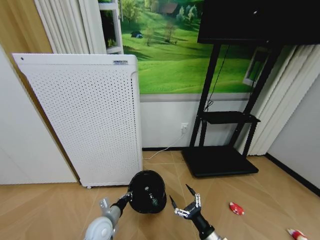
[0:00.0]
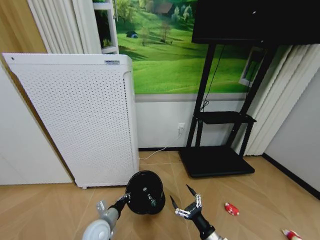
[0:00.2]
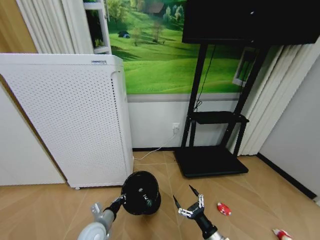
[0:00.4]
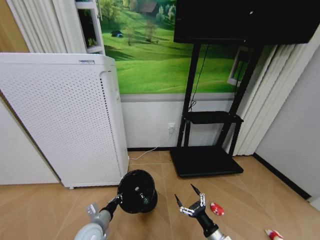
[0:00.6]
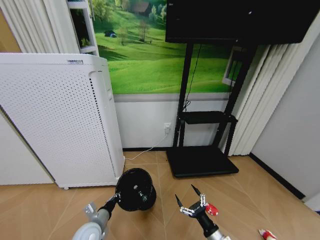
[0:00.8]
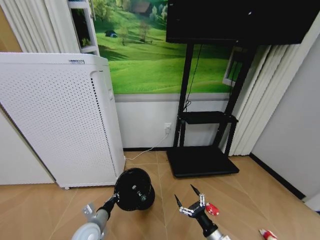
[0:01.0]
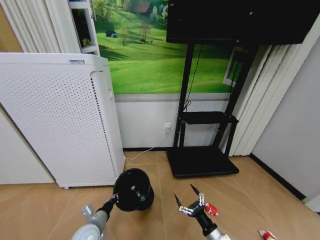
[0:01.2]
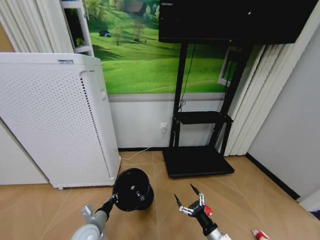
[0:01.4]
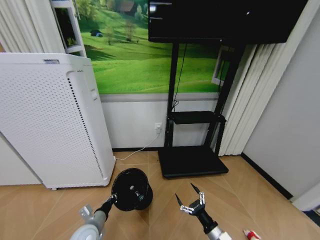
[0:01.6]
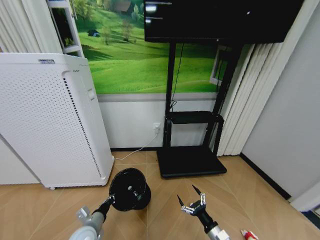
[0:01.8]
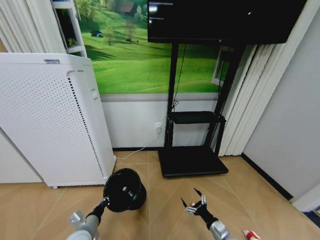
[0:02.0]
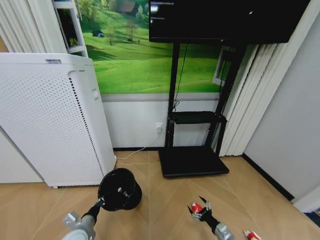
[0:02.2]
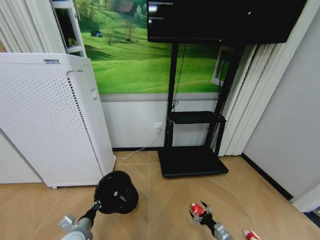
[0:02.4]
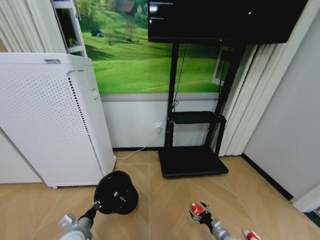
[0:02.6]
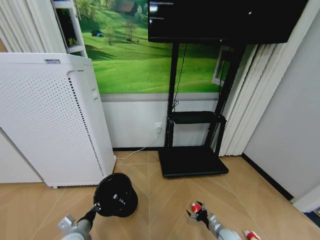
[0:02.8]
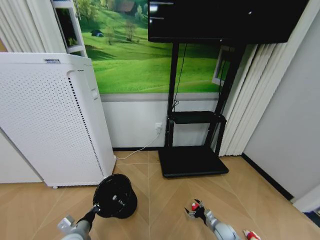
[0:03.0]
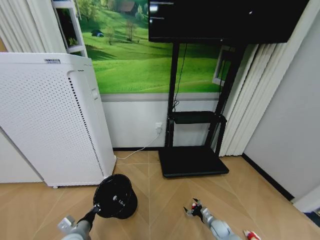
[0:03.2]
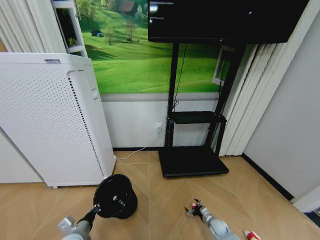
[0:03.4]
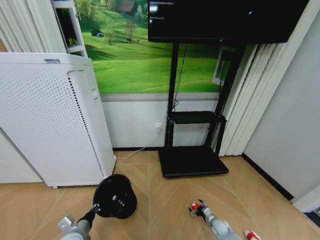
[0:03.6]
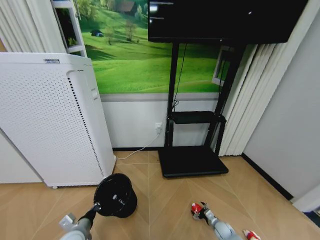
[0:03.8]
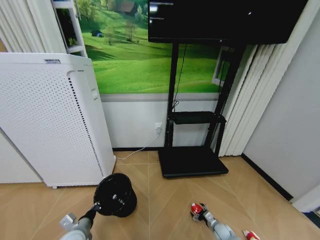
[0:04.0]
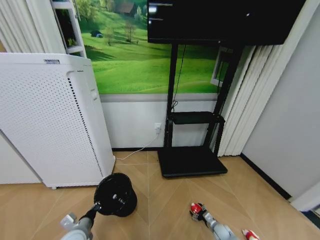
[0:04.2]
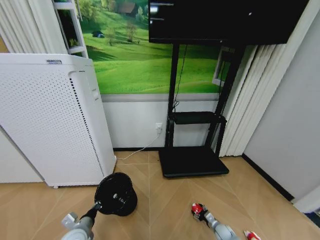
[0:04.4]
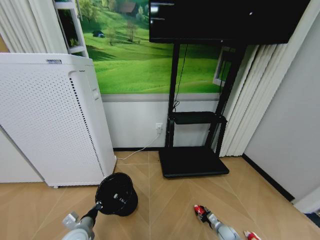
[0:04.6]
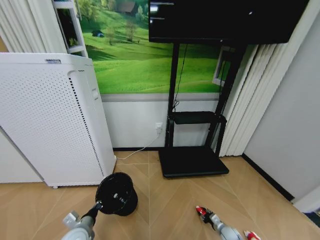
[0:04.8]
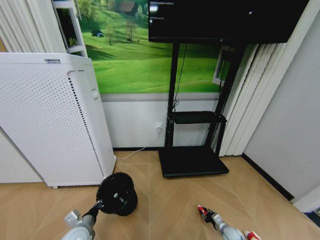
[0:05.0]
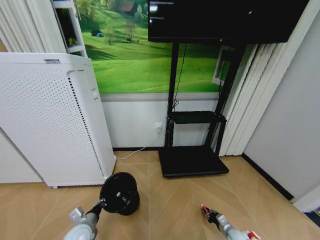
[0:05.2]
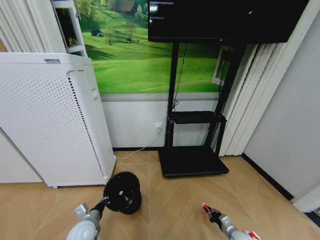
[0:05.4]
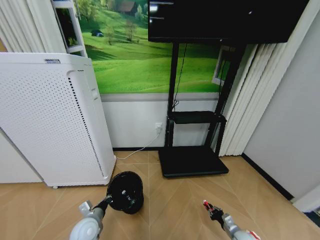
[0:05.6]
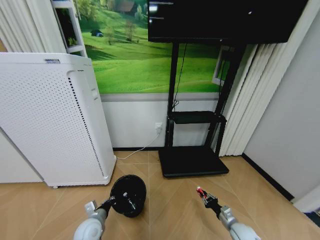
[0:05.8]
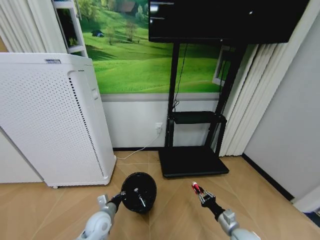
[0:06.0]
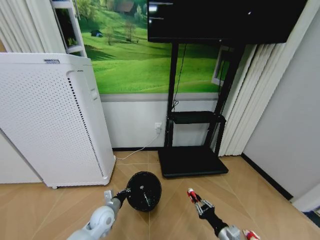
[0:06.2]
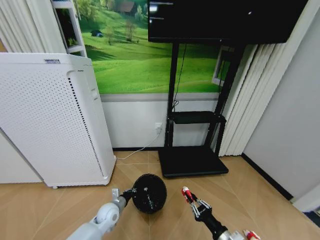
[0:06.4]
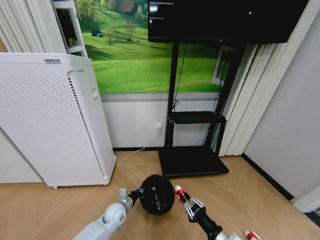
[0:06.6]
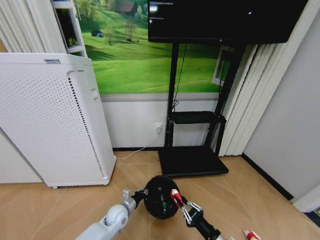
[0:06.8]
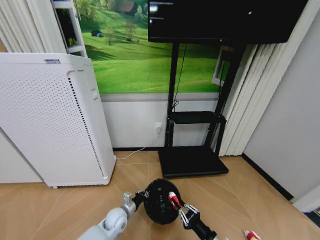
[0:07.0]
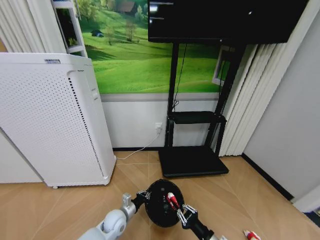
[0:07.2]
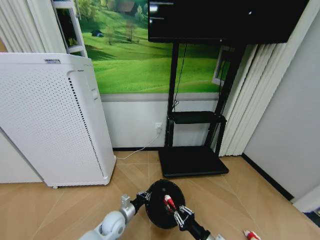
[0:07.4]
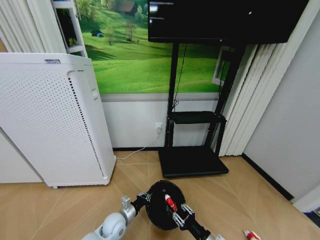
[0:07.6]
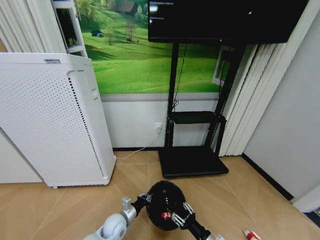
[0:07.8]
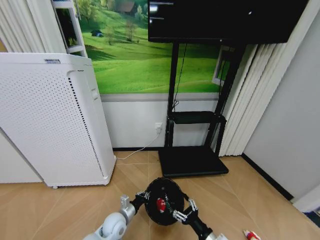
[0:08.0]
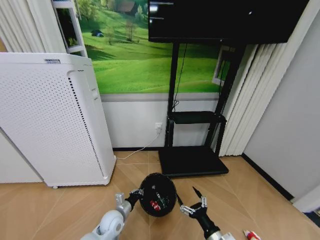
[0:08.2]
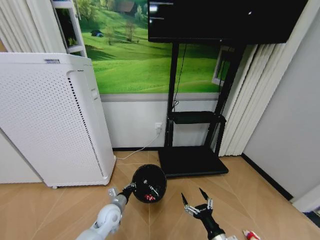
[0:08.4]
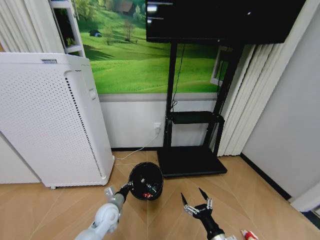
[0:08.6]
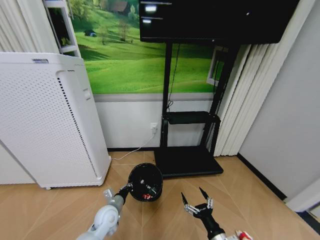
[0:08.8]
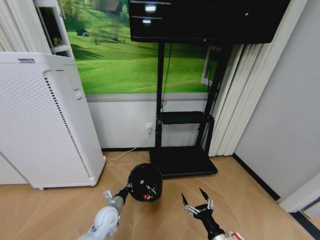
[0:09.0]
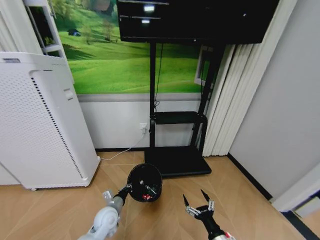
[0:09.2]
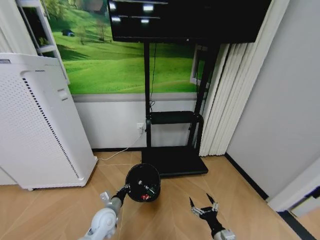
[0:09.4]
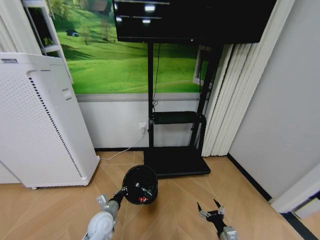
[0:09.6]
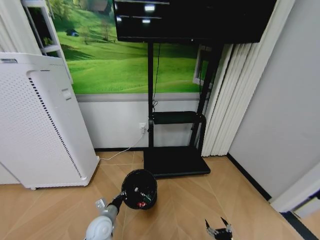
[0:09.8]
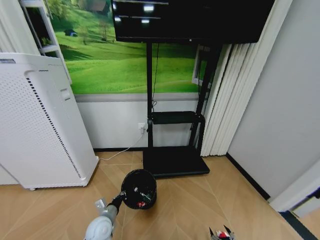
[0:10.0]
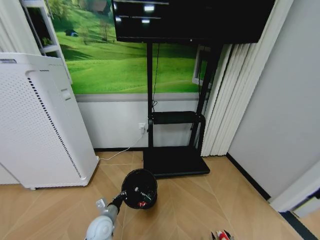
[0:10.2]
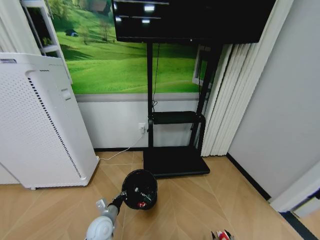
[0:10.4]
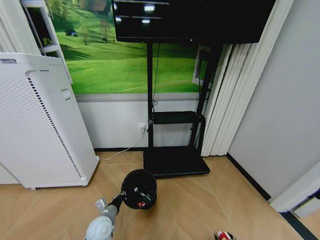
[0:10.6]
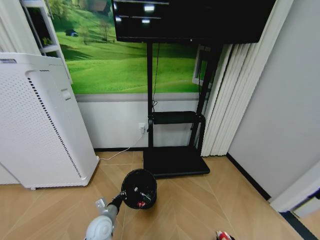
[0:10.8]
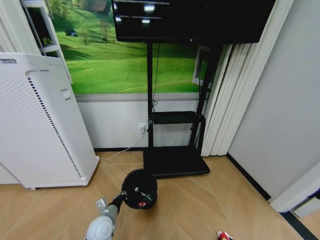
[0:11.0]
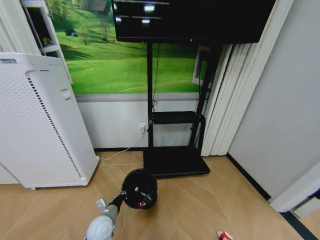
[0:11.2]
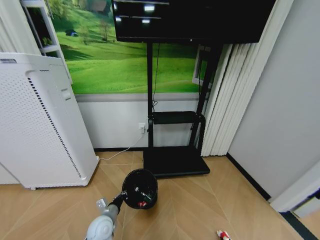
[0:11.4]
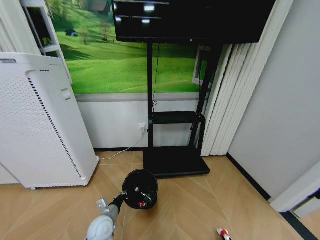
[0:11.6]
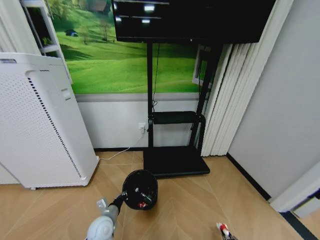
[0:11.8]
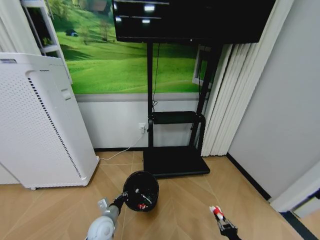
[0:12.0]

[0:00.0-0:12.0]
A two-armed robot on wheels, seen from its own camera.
Task of the whole recording: Pick up the trash bin and place the garbage on the floor into it.
0:00.0 to 0:01.6: The left gripper shifts by approximately 5 cm.
0:01.6 to 0:03.0: The right gripper moves downward, to the right and forward, some 20 cm.
0:03.0 to 0:04.4: The right gripper travels downward by some 5 cm.
0:04.4 to 0:06.0: The left gripper shifts about 10 cm forward and to the right. Meanwhile the right gripper travels upward by approximately 20 cm, and closes its fingers.
0:06.0 to 0:07.6: The left gripper is displaced to the right by approximately 5 cm. Meanwhile the right gripper moves to the left and backward, roughly 10 cm.
0:07.6 to 0:09.0: The right gripper opens up.
0:09.0 to 0:10.4: The right gripper moves downward and to the right, about 25 cm.
0:10.4 to 0:12.0: The right gripper closes up.

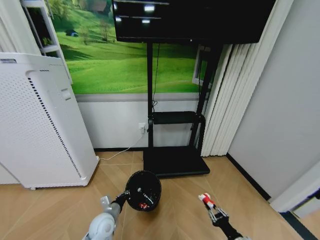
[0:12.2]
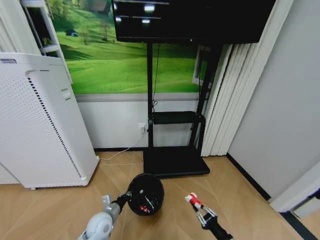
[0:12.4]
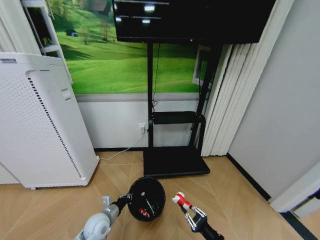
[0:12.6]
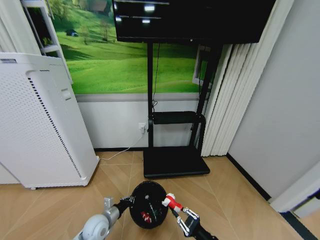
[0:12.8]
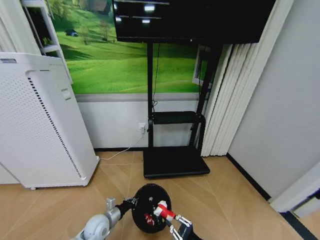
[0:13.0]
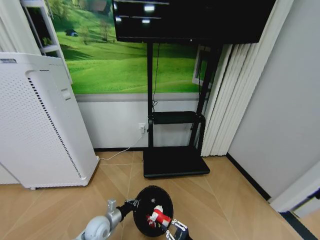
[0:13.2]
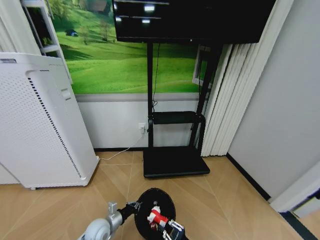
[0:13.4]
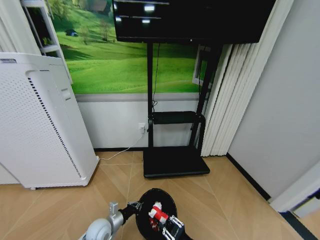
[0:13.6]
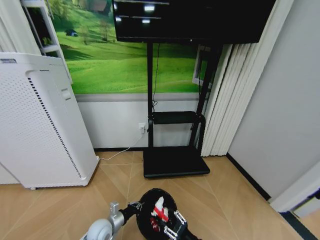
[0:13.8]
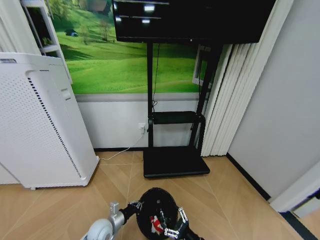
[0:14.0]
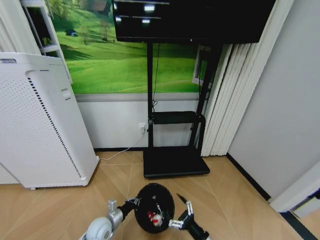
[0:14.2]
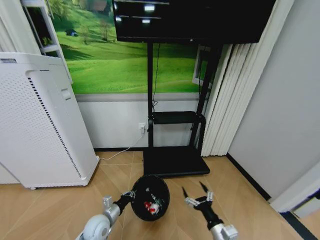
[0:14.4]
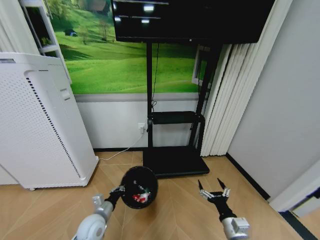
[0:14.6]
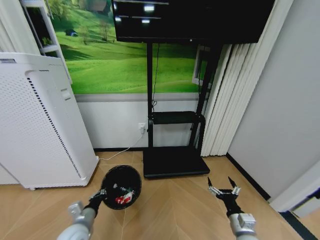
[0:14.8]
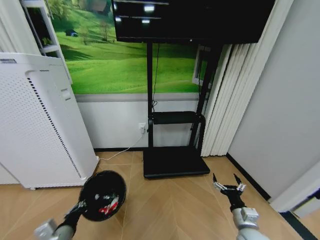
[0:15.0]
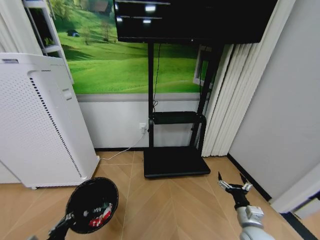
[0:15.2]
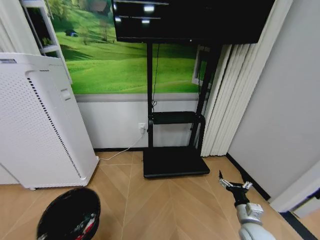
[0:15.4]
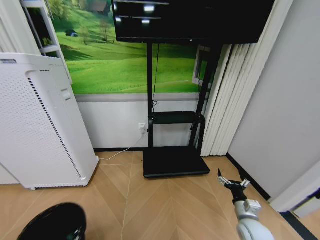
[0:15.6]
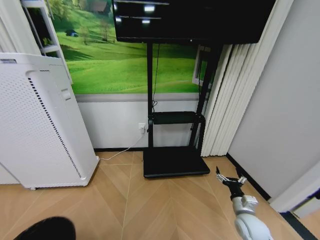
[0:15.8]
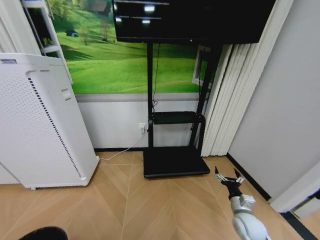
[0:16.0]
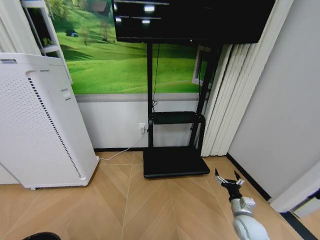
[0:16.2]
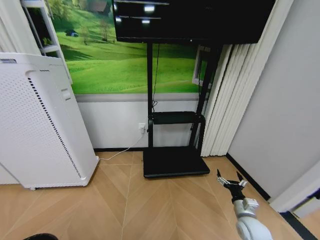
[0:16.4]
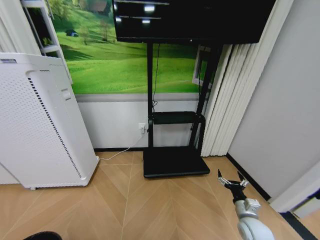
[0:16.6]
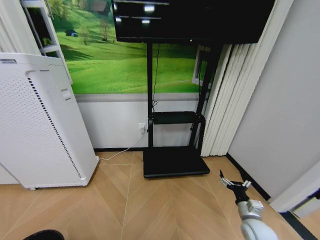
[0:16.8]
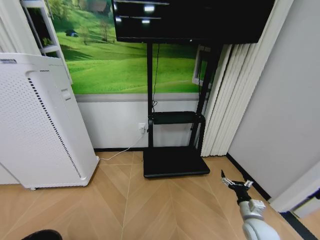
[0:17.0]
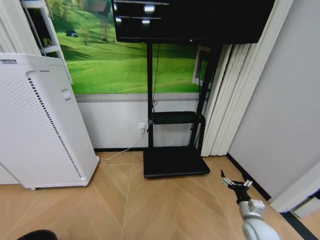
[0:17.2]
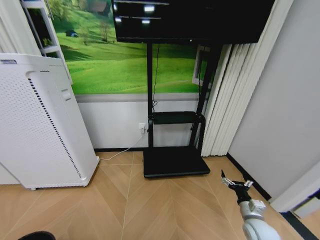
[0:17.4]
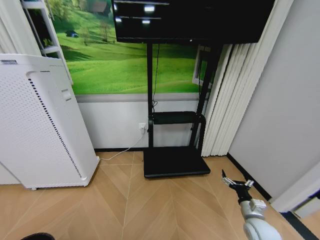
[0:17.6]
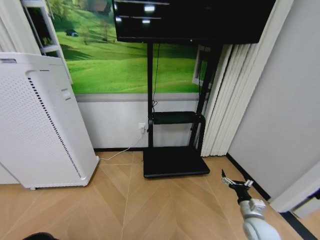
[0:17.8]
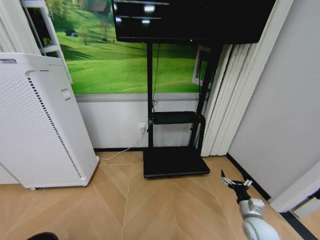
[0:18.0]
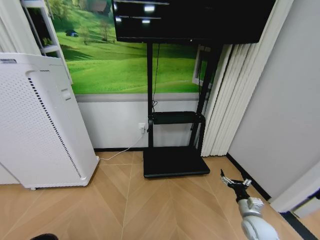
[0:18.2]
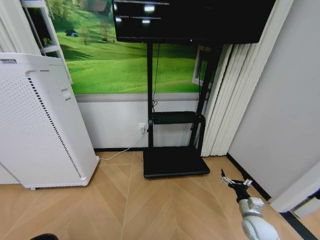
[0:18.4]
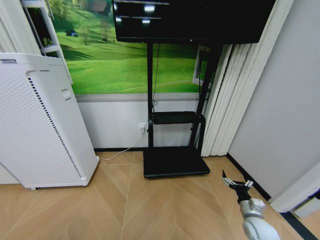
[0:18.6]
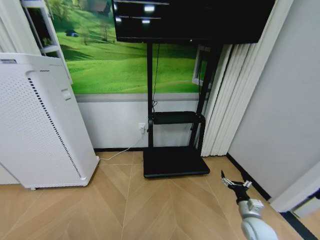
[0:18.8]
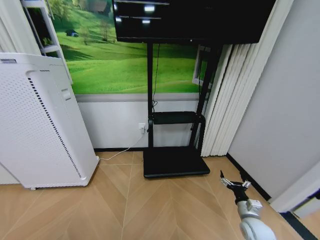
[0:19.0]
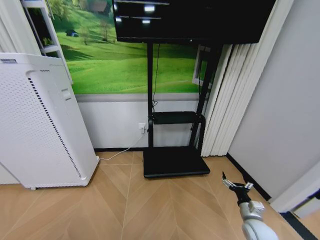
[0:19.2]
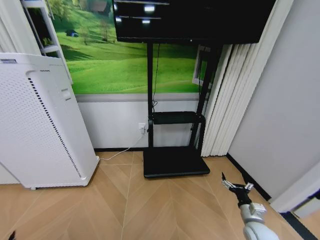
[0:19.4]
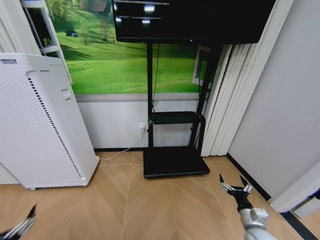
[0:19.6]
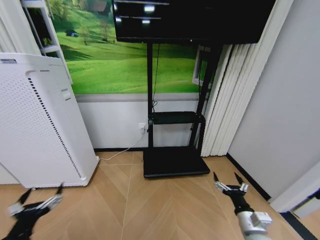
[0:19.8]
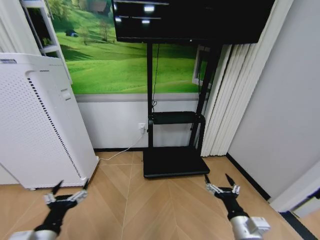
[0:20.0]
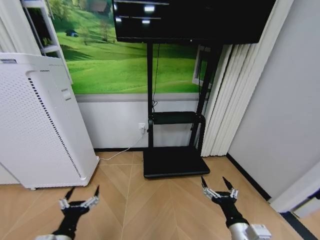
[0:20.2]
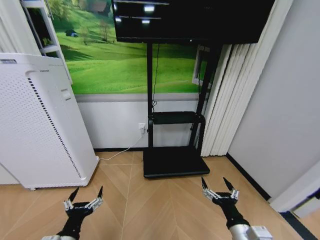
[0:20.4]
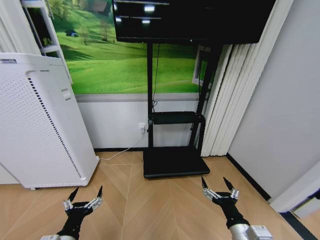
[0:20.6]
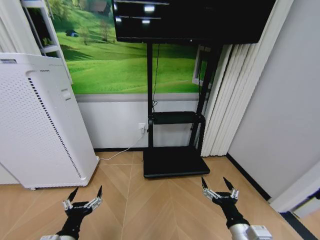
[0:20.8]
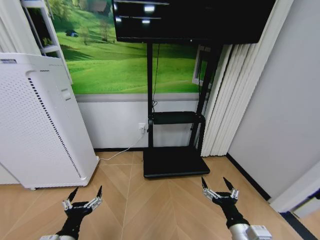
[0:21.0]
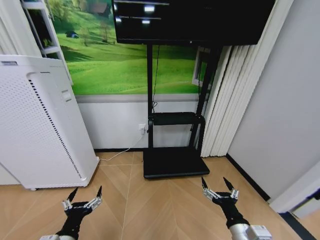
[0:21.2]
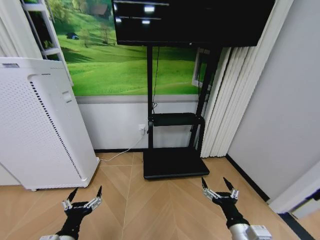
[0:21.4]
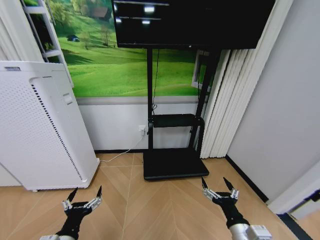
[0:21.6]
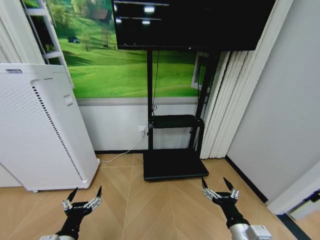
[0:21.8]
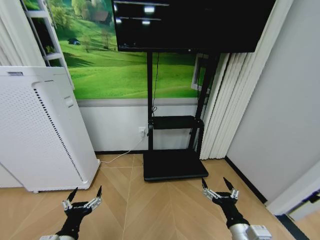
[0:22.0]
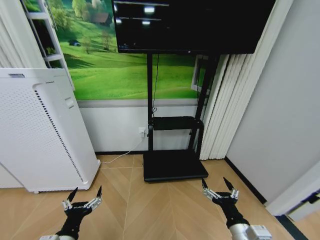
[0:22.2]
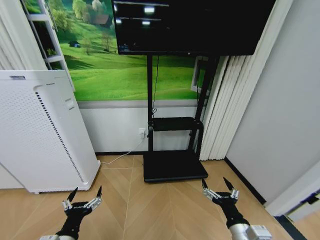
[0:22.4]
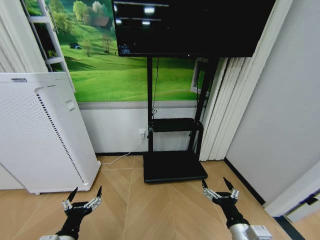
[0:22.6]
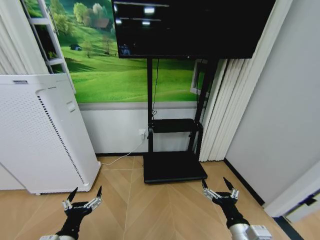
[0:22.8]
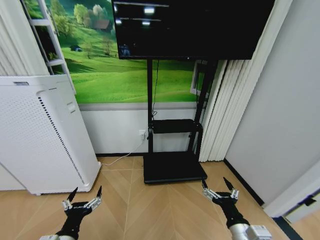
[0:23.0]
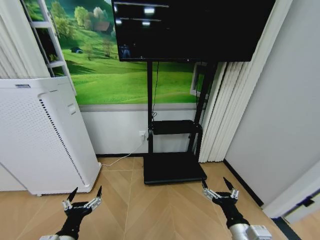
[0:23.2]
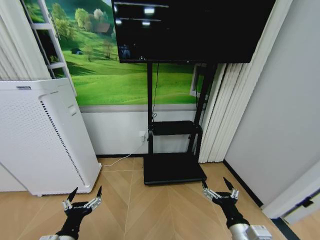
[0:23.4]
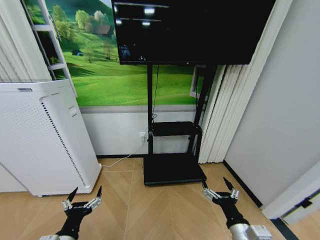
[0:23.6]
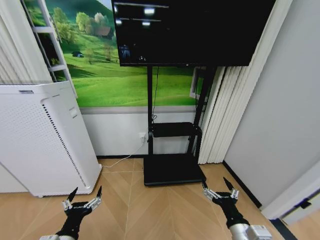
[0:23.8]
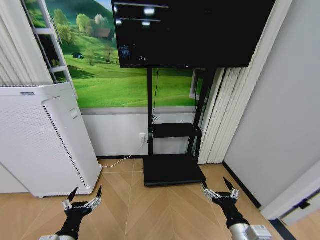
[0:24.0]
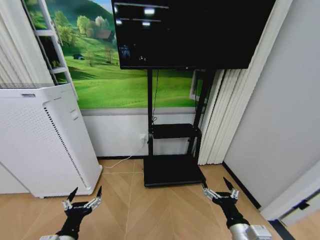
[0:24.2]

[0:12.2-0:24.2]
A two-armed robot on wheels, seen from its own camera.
Task of the whole recording: Pick up the trash bin and place the garbage on the floor into it.
0:12.2 to 0:13.8: The right gripper goes about 15 cm to the left, and opens.
0:13.8 to 0:15.2: The left gripper shifts about 20 cm backward, upward and to the left; the right gripper heads to the right, forward and upward, covering roughly 15 cm, and opens up.
0:15.2 to 0:16.6: The left gripper goes roughly 20 cm backward, to the left and downward; the right gripper shifts by some 5 cm.
0:18.2 to 0:19.8: The left gripper heads upward, forward and to the right, covering approximately 20 cm, and opens up; the right gripper travels to the left, backward and upward by approximately 10 cm.
0:19.8 to 0:21.2: The right gripper is displaced to the left by some 5 cm, while the left gripper is displaced to the right by roughly 10 cm.
0:21.2 to 0:24.2: Both grippers stay about where they are.
